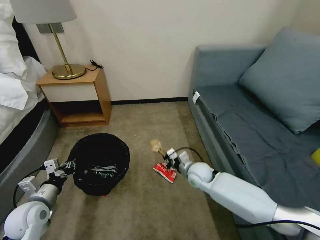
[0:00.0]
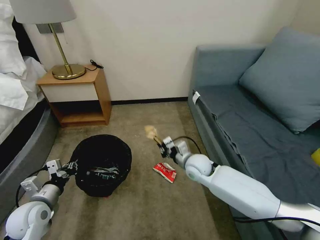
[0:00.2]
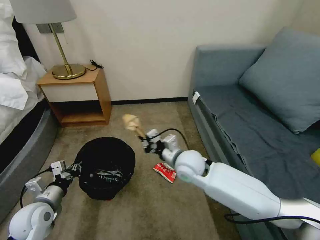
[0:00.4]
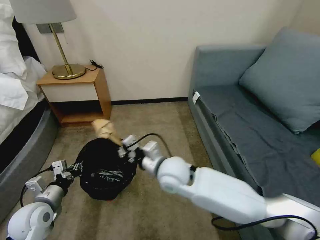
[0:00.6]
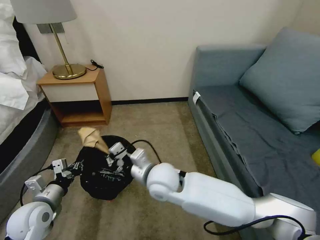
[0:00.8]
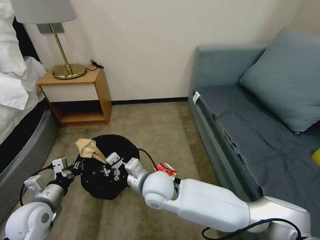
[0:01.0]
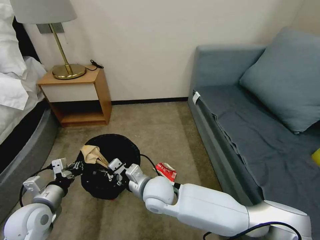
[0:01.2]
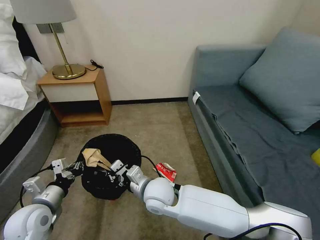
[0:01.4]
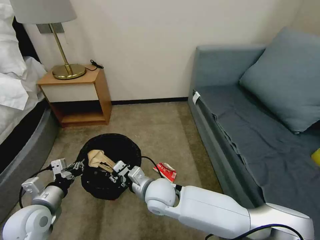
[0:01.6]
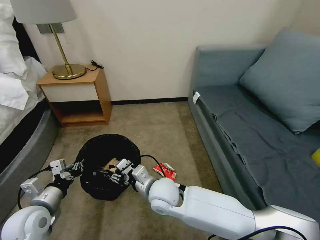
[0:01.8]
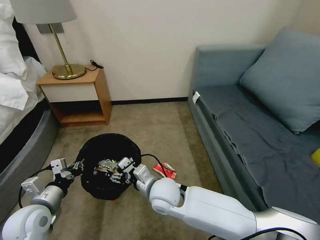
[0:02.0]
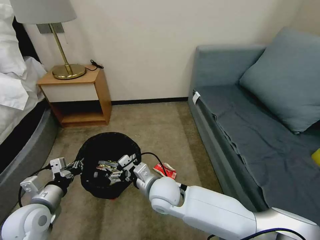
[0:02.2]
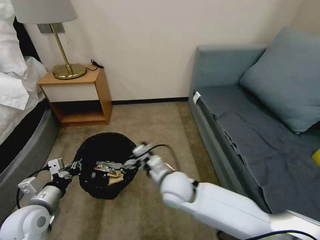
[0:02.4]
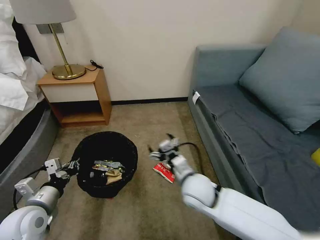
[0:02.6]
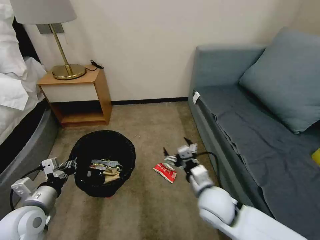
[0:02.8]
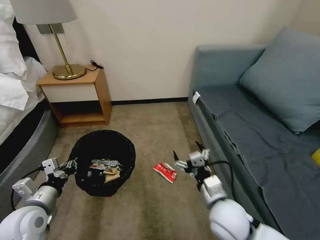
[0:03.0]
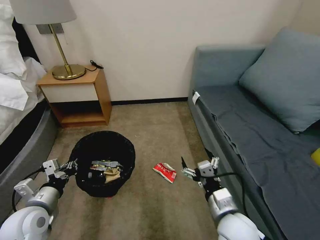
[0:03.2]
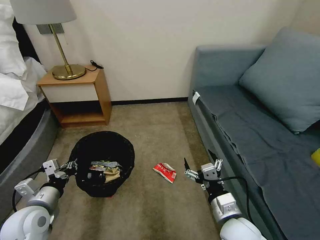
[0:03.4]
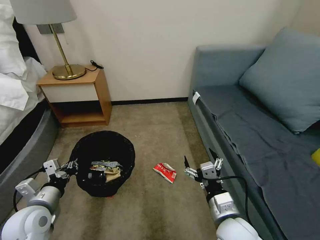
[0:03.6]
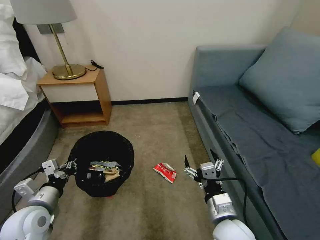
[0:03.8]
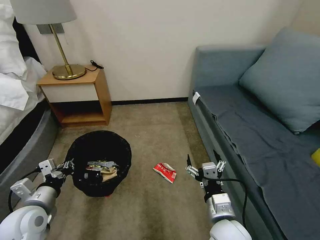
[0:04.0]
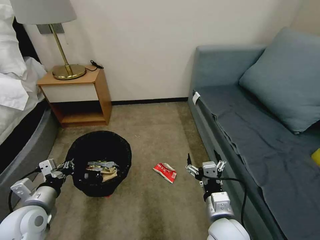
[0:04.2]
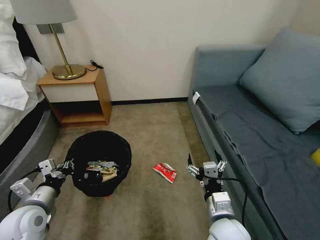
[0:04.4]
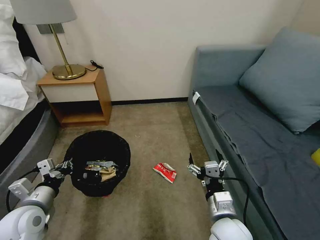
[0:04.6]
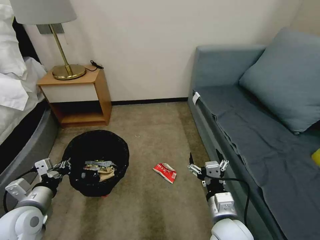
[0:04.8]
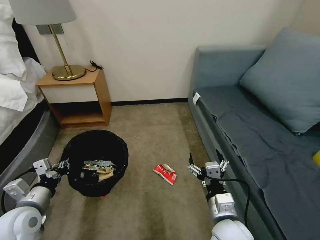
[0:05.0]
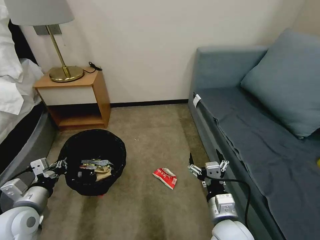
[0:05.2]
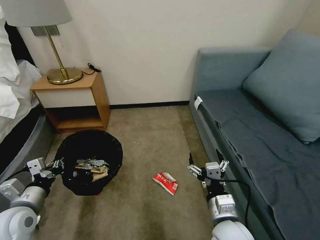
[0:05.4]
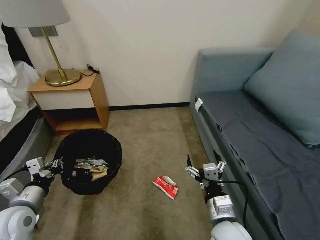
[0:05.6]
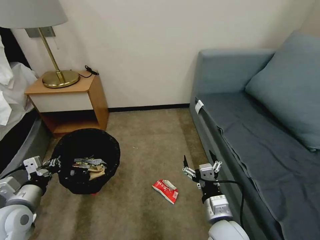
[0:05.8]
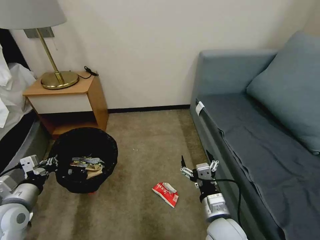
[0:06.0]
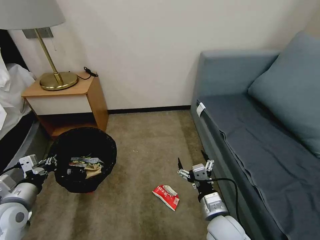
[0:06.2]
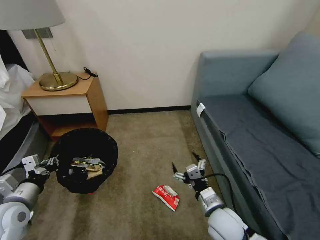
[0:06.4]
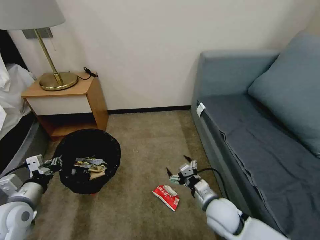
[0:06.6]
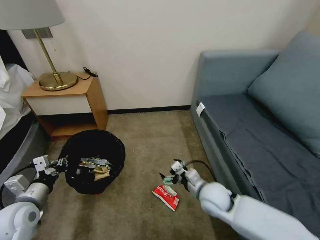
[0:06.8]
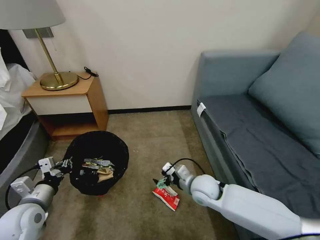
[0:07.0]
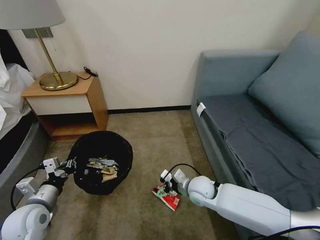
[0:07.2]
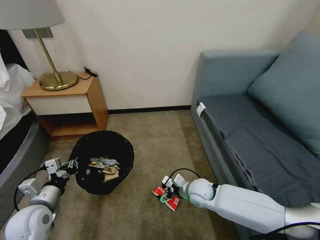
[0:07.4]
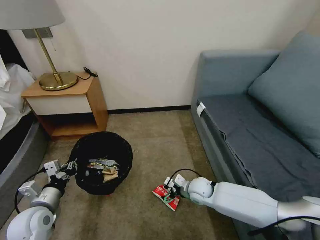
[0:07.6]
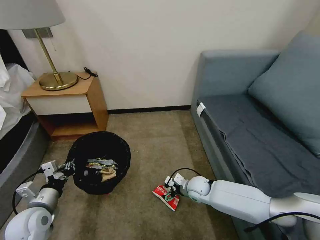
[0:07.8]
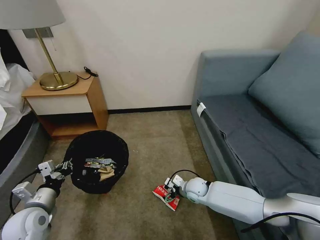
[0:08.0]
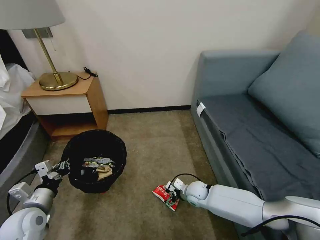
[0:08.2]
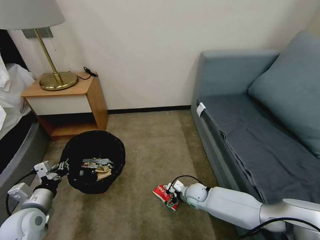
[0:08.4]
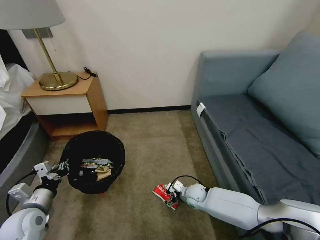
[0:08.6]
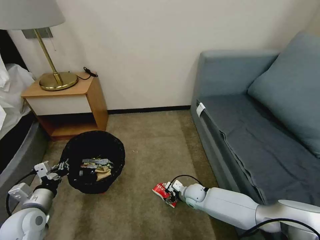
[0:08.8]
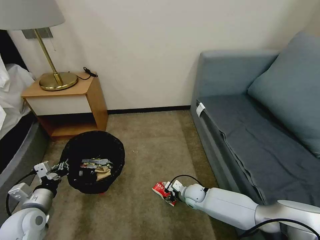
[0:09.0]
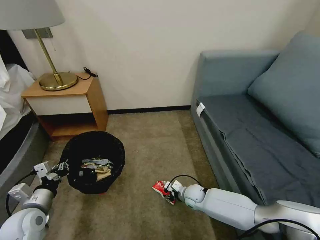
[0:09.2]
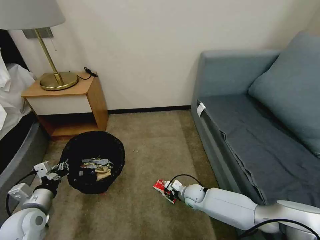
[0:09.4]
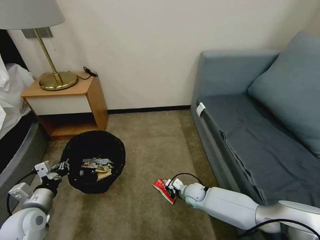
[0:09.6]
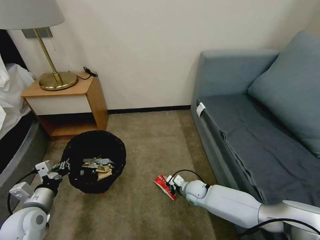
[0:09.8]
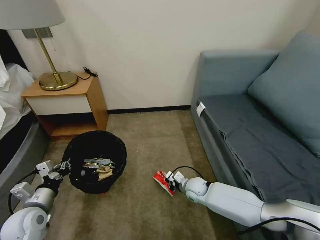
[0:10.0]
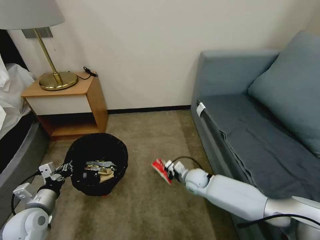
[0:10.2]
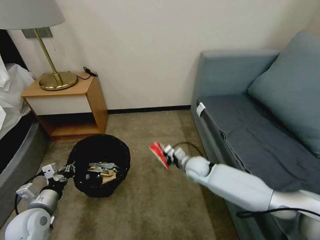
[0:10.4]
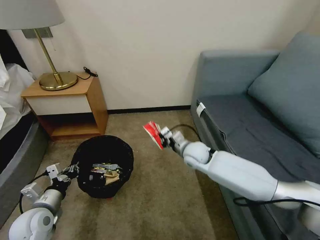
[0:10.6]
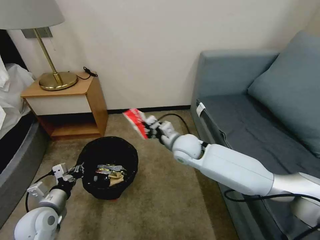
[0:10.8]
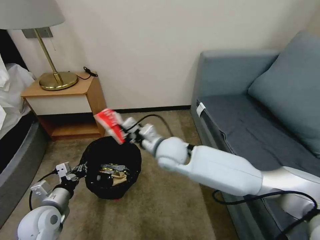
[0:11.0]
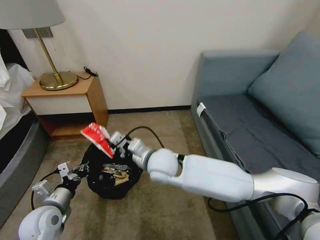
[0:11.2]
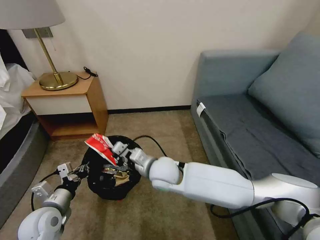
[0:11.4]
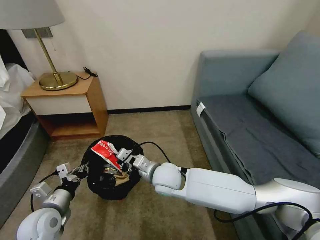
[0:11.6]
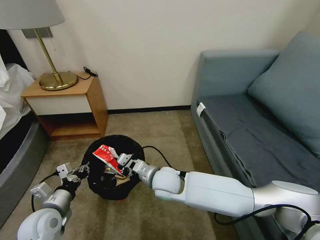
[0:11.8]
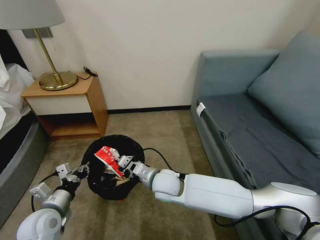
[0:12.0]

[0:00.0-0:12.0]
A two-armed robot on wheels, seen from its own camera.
Task of the whole recording: Pick up the trash bin, then pick up the garbage on the floor and place it into the trash bin.
0:00.0 to 0:01.6: The right gripper goes approximately 20 cm to the left, backward and upward.
0:01.6 to 0:03.0: The right gripper moves to the right and backward, some 20 cm, and opens up.
0:03.0 to 0:04.4: There are only small adjustments of the grippers.
0:06.0 to 0:07.6: The left gripper ends up approximately 5 cm from where it was. Meanwhile the right gripper moves forward and downward, roughly 20 cm.
0:07.6 to 0:09.0: The right gripper moves downward, some 10 cm.
0:09.0 to 0:10.4: The right gripper goes some 15 cm upward and forward, and closes its fingers.
0:10.4 to 0:12.0: The right gripper travels to the left and backward by approximately 15 cm, and moves about 15 cm upward and comes back.

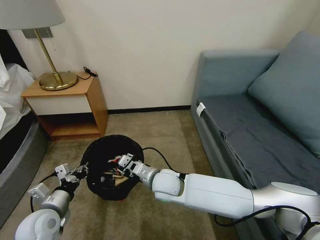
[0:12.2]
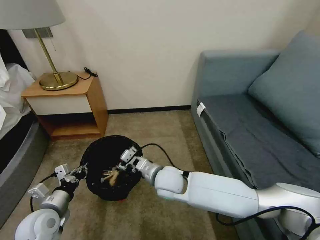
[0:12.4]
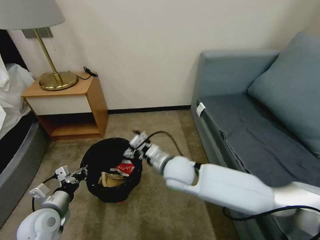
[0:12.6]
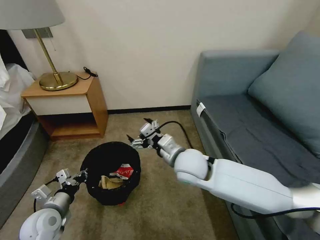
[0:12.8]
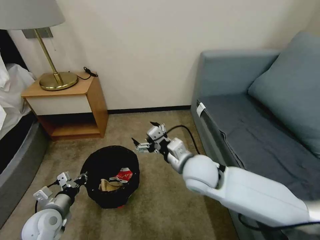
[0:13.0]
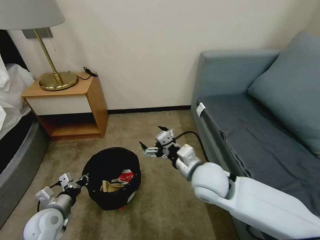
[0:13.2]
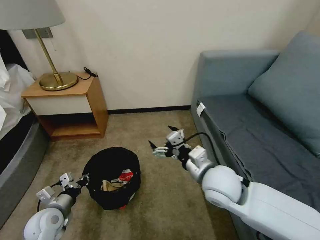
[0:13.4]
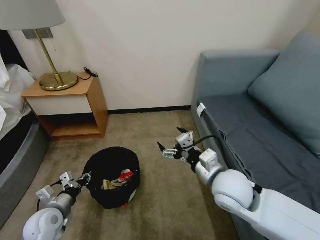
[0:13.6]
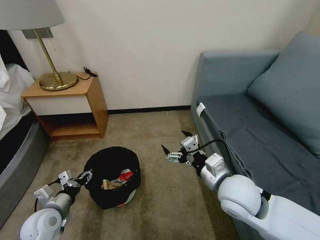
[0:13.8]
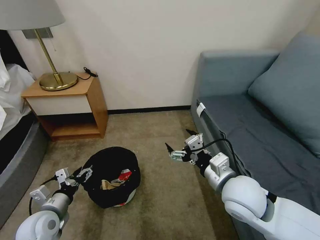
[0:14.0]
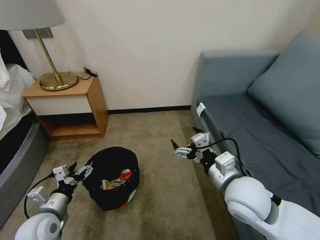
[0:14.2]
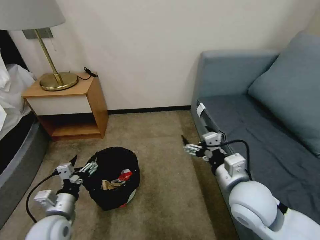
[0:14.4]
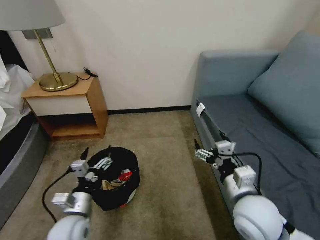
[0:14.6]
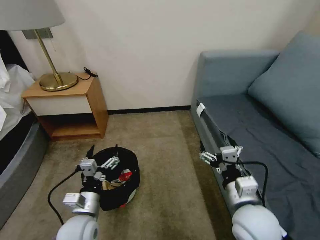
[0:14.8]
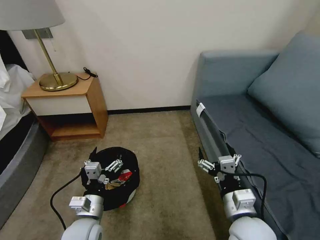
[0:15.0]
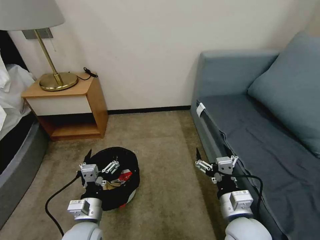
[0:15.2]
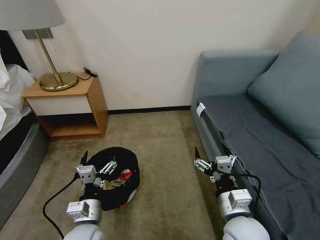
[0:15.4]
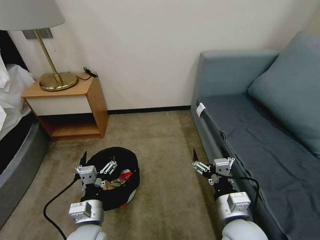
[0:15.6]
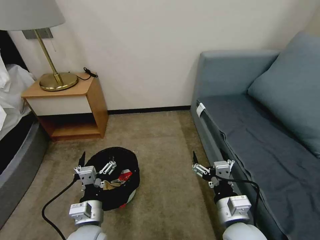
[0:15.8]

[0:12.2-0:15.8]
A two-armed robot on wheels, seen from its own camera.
Task of the whole recording: Pick up the trash bin, then pick up the garbage on the floor and place it into the trash bin.
0:12.2 to 0:14.0: The right gripper is displaced to the right, upward and backward by approximately 20 cm, and opens. The left gripper opens.
0:14.0 to 0:15.8: The right gripper travels backward and downward by some 10 cm. Meanwhile the left gripper travels to the right by about 15 cm.

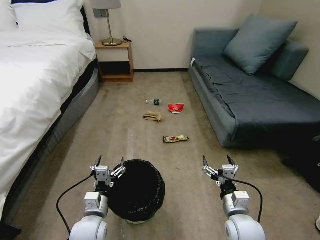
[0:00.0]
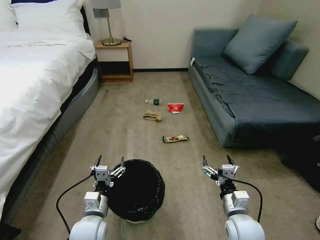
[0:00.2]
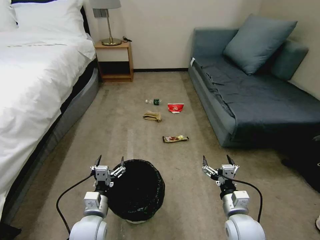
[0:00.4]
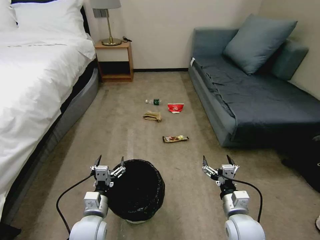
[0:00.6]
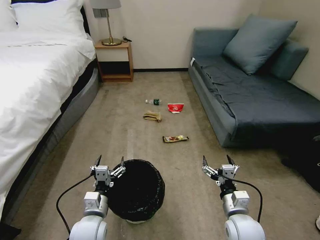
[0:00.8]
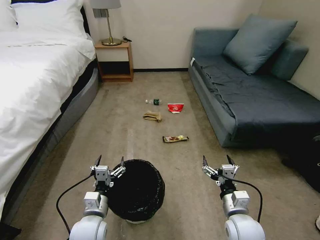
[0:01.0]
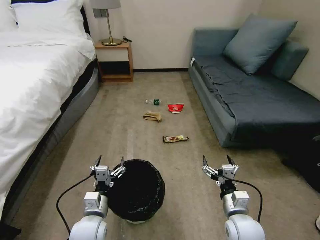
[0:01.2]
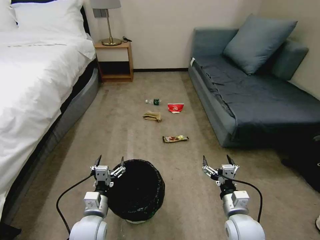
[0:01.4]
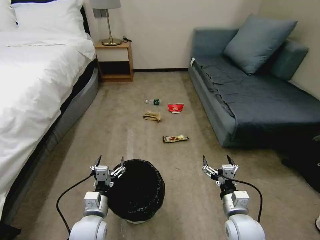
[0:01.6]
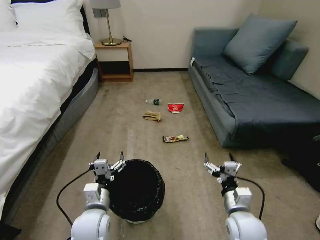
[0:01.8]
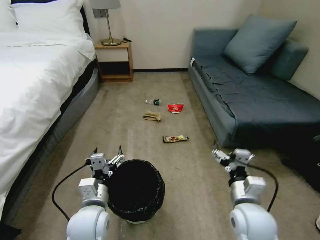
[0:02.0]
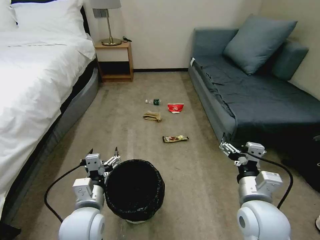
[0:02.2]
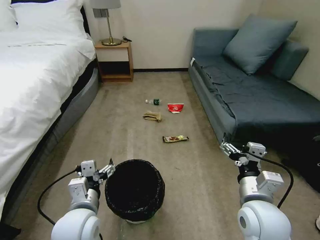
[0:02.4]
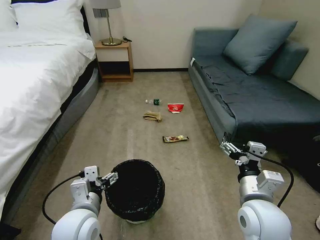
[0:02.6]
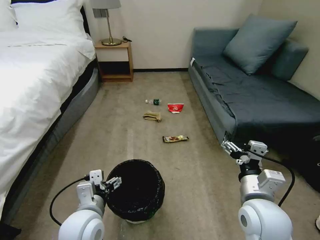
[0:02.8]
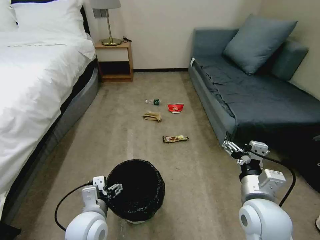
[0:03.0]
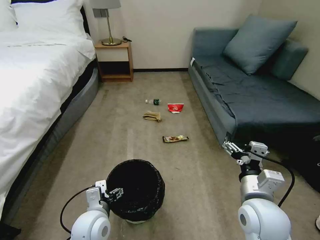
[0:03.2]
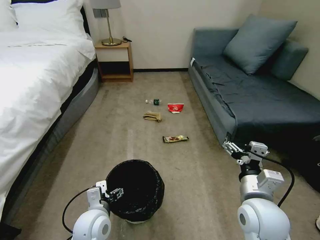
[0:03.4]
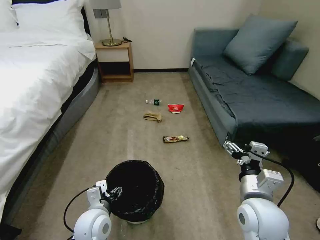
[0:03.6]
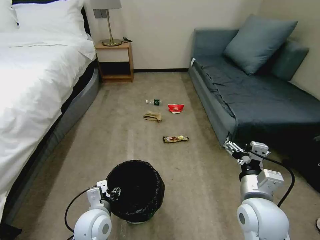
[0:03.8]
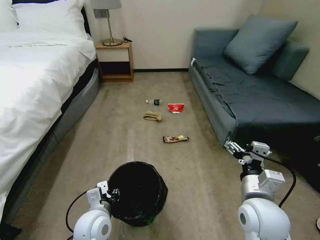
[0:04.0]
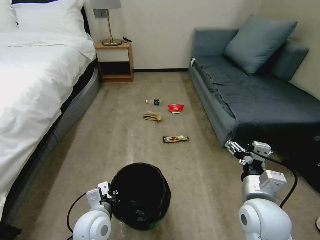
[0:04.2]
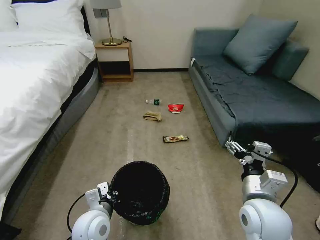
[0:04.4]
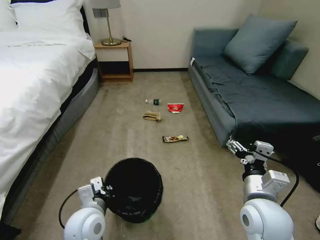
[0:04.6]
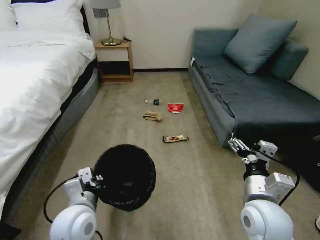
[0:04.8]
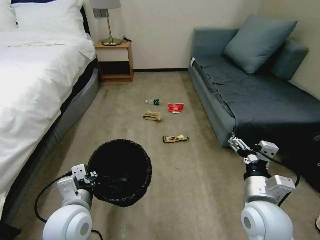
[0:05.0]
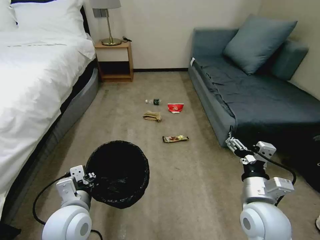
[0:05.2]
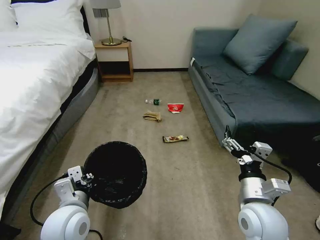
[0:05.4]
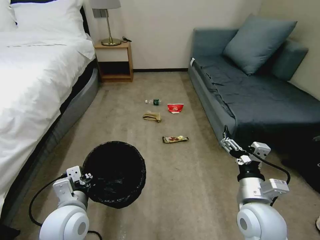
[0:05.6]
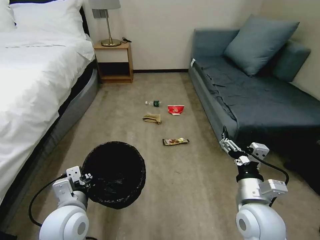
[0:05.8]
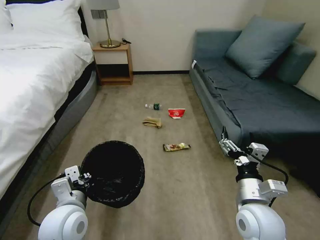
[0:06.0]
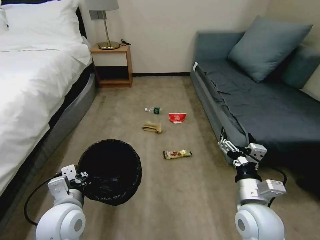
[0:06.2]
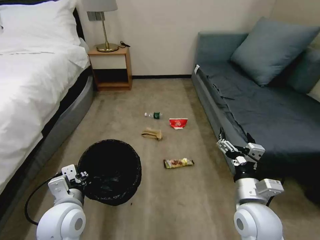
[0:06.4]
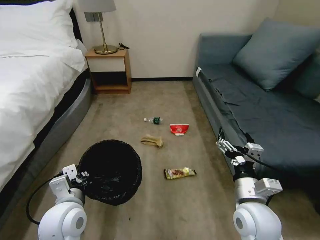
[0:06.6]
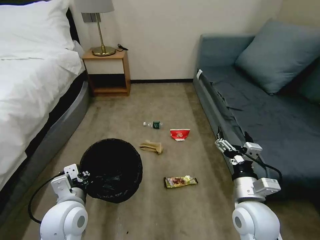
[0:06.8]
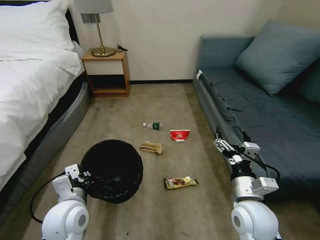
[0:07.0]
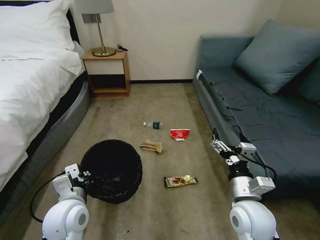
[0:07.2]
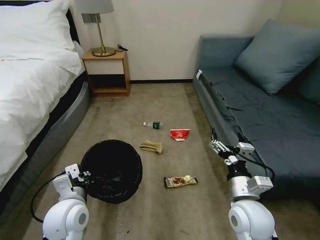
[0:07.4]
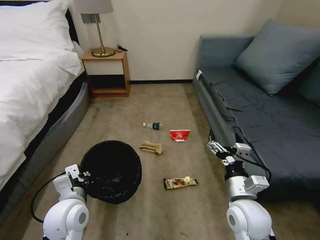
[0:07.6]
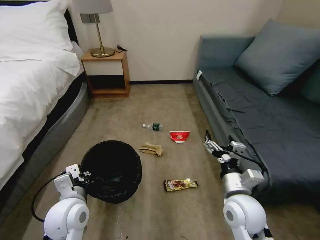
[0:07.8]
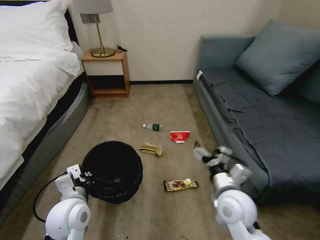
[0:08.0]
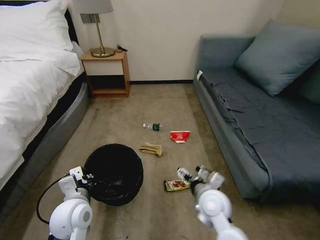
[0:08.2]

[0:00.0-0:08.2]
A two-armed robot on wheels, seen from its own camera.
Task of the whole recording: Pick up the trash bin, then pick up the garbage on the floor and place it into the trash bin.
0:01.6 to 0:03.2: The right gripper goes some 15 cm upward.
0:03.2 to 0:05.0: The left gripper moves upward, approximately 10 cm, and closes its fingers.
0:06.6 to 0:08.2: The right gripper moves to the left, downward and forward, some 10 cm.
